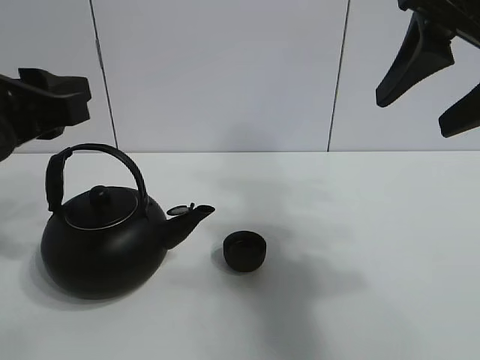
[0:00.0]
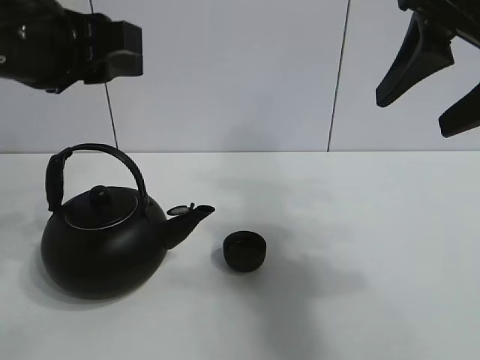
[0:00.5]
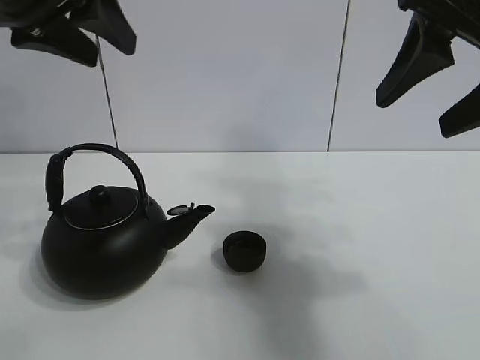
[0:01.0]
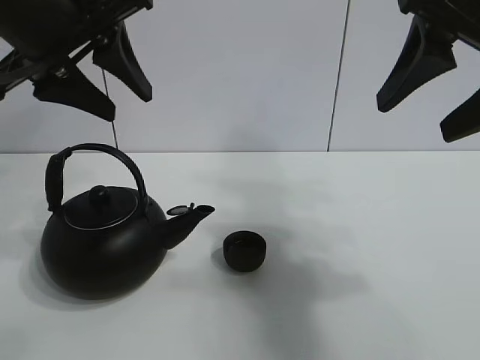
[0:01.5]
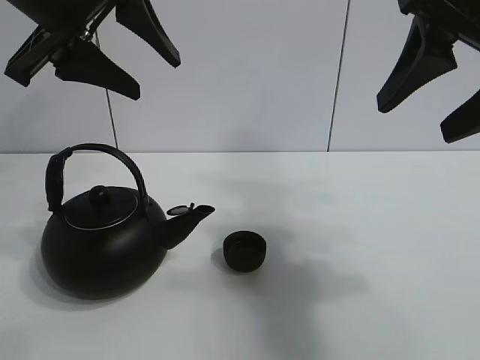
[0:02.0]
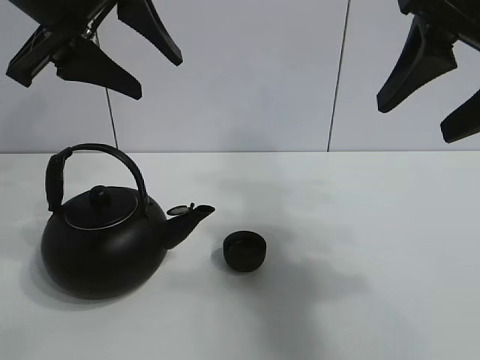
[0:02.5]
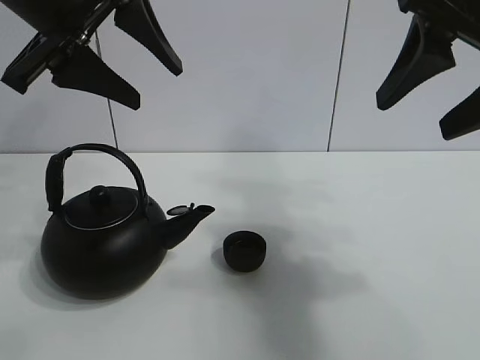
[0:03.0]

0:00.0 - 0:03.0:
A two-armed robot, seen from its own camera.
Task of the whole recording: pour tea into the teacup.
0:00.0 - 0:01.5: The left gripper travels upward and forward by roughly 10 cm.
0:01.5 - 0:03.0: The grippers stay close to where they were, moving slightly.

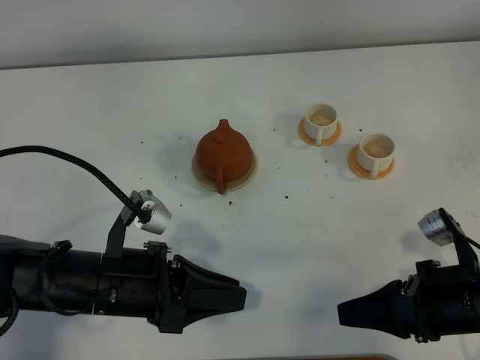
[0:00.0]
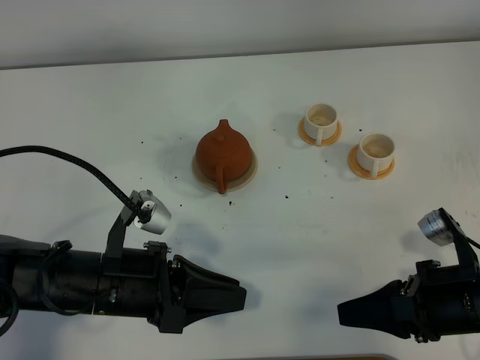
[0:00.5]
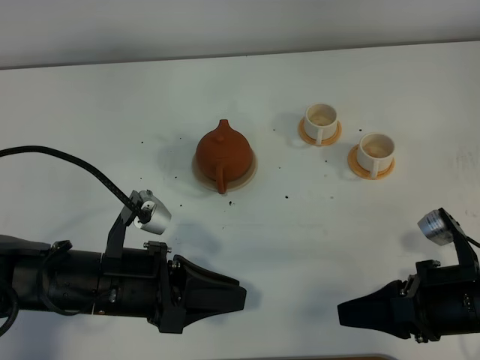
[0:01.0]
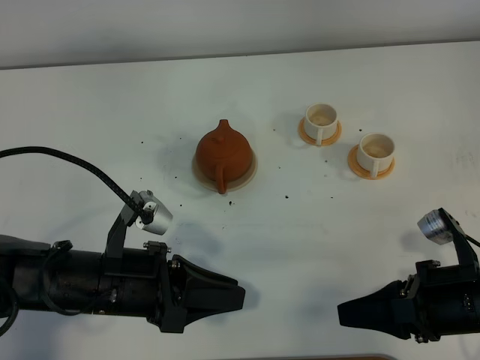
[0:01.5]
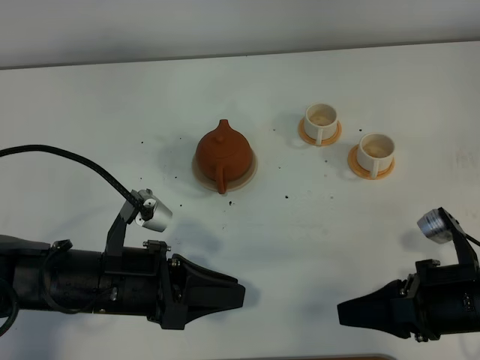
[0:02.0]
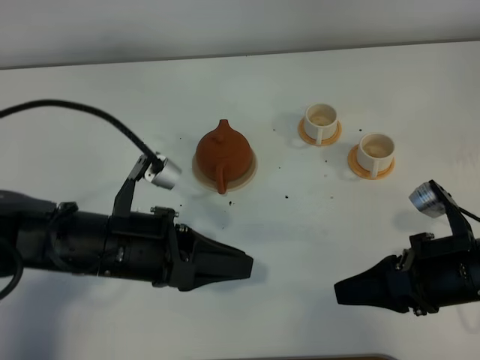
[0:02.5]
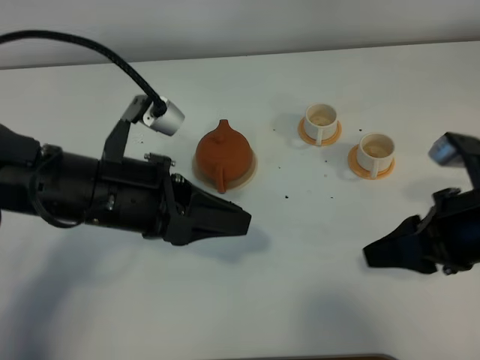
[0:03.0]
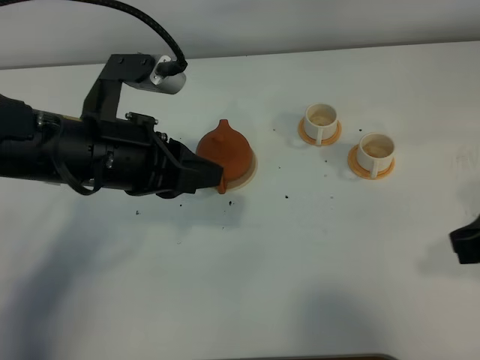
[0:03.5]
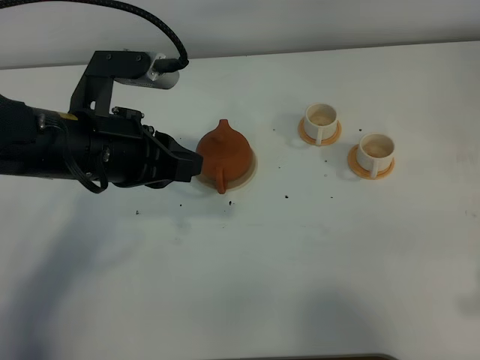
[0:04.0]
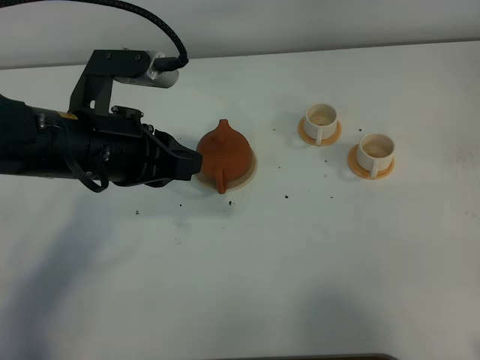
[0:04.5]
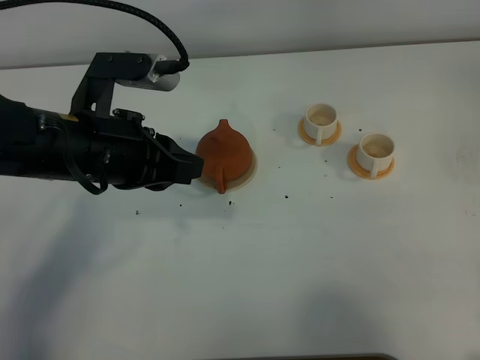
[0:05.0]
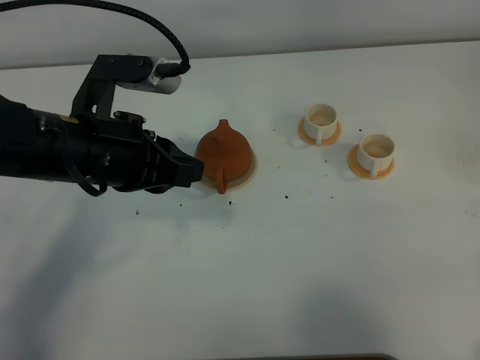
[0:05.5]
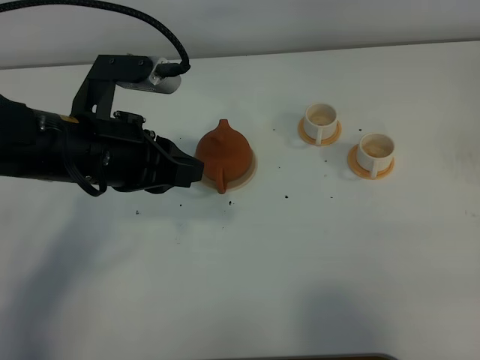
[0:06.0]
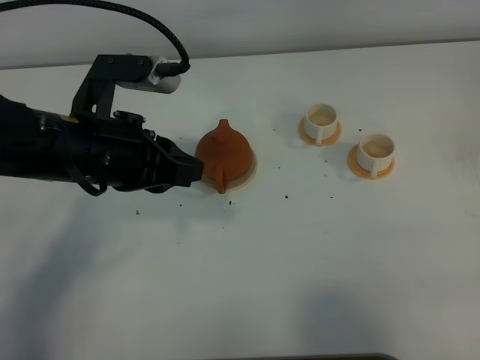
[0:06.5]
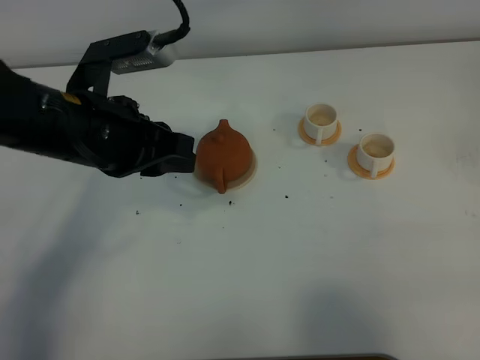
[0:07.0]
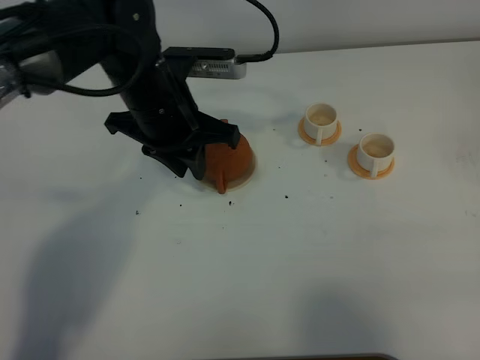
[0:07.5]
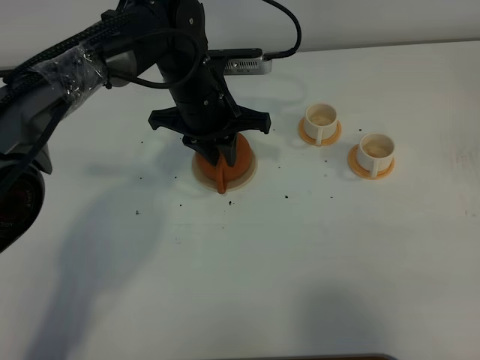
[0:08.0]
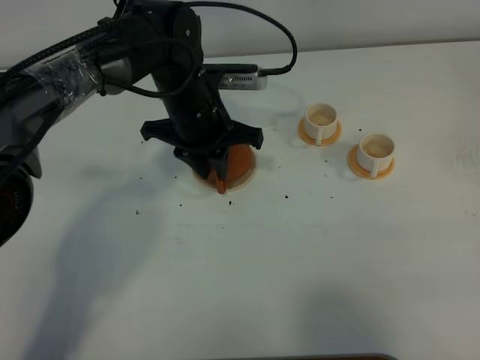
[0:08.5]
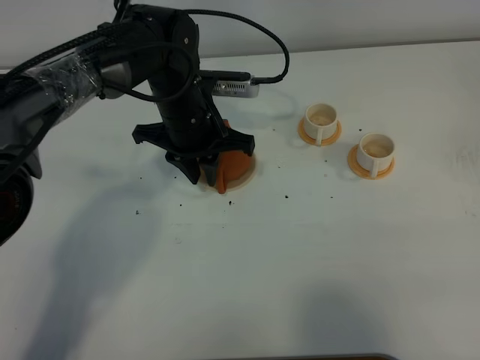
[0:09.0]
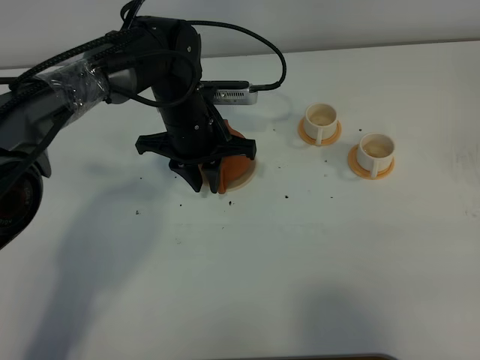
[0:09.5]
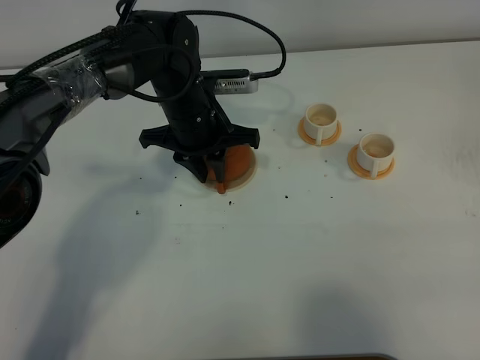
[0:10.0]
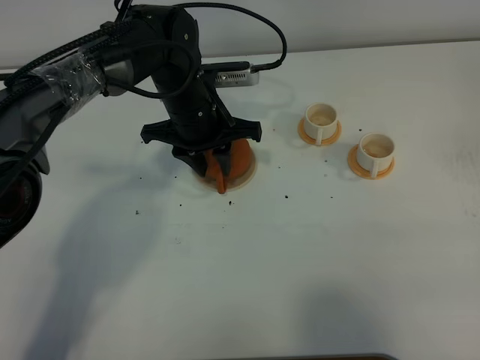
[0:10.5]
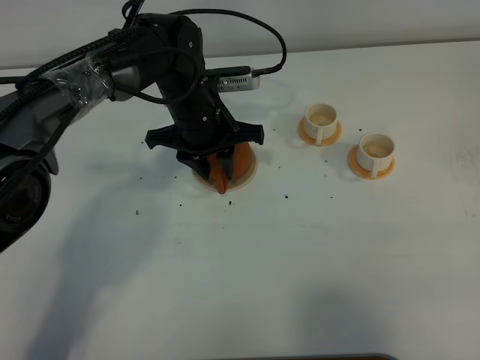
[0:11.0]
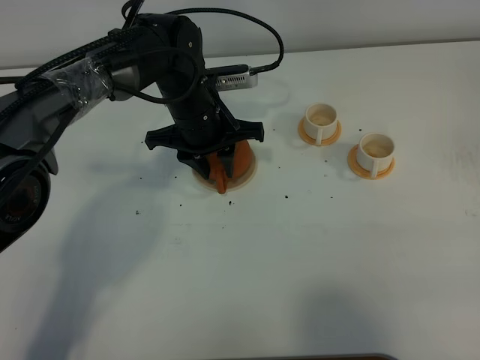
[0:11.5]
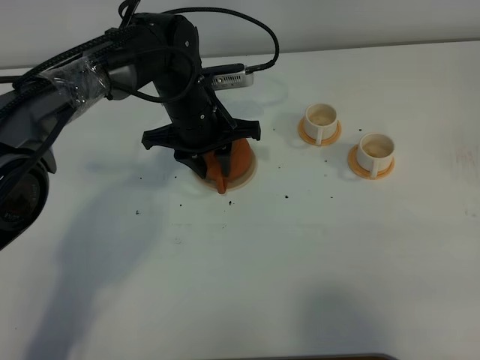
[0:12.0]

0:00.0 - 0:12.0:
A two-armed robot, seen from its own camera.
Task of the whole recording: grasp the brown teapot and pour the tea into the two white teacups one by one, put the brown teapot back in its original place.
0:00.0 - 0:02.0: Neither gripper changes place.
0:02.0 - 0:04.0: The left gripper heads upward and forward, covering roughly 15 cm. The right gripper goes about 15 cm upward and to the right.
0:04.0 - 0:06.0: The right gripper heads backward, covering some 10 cm.
0:06.0 - 0:08.0: The left gripper is displaced forward, to the right and downward by some 20 cm.
0:08.0 - 0:10.0: The grippers move only a little.
0:10.0 - 0:12.0: The left gripper opens up.

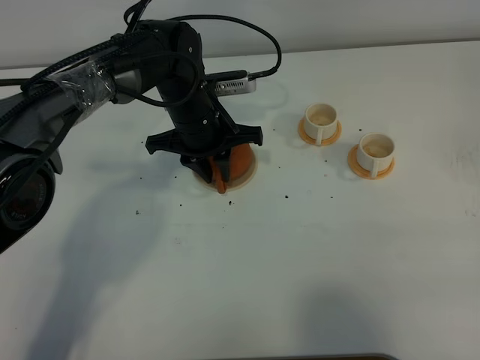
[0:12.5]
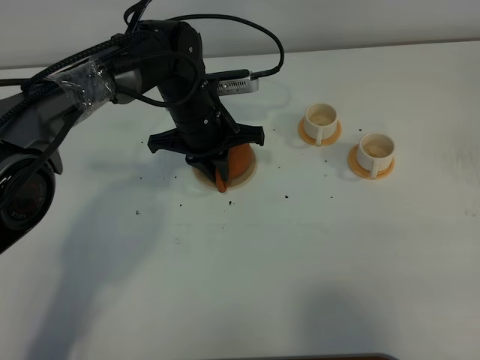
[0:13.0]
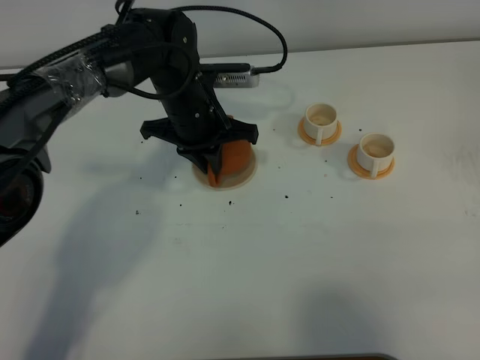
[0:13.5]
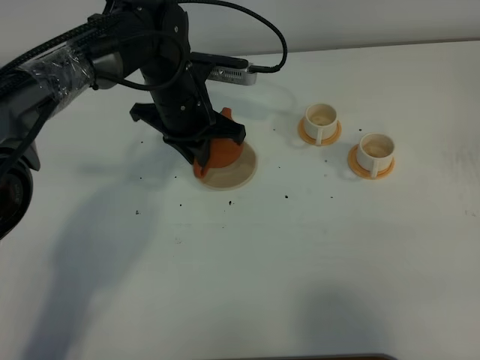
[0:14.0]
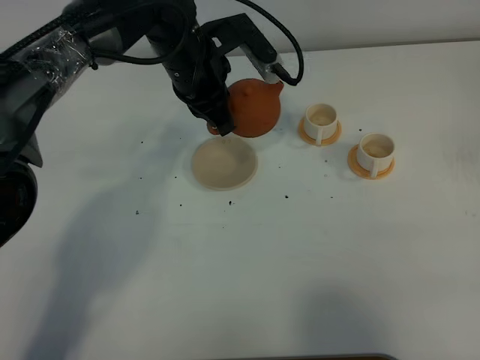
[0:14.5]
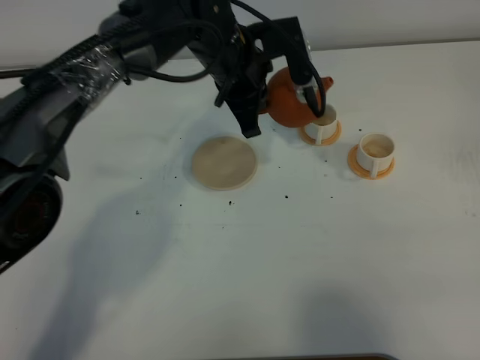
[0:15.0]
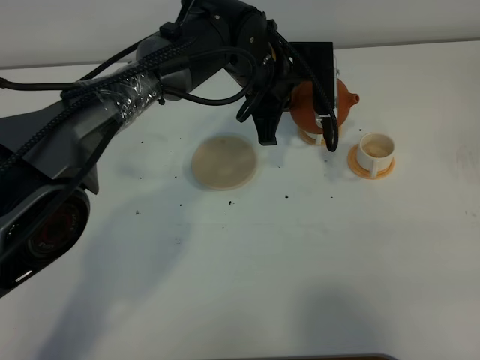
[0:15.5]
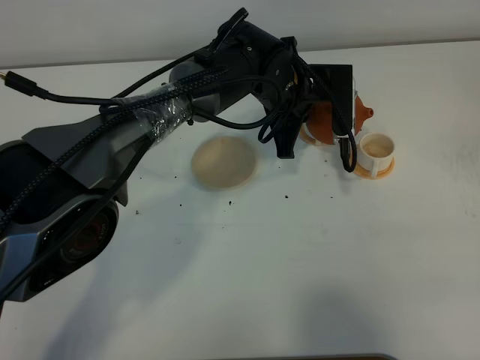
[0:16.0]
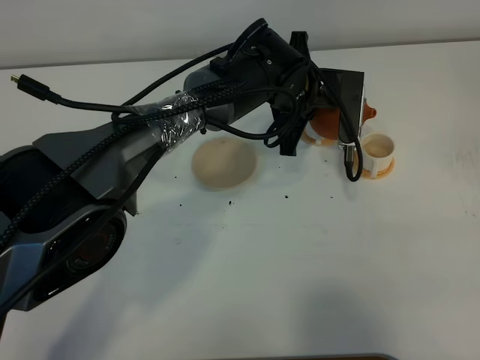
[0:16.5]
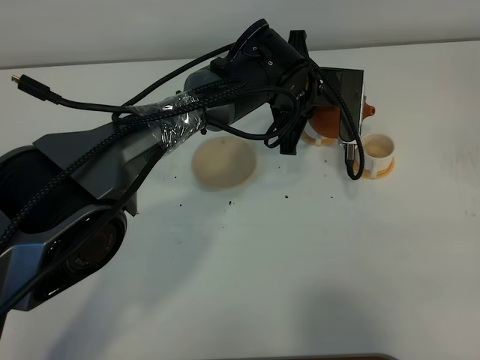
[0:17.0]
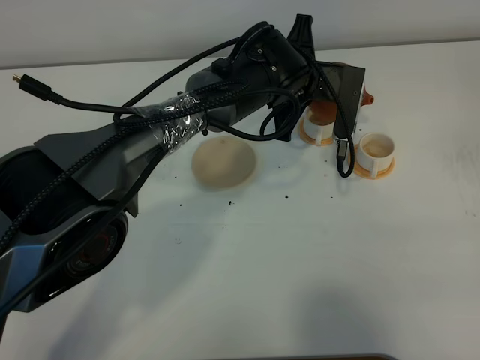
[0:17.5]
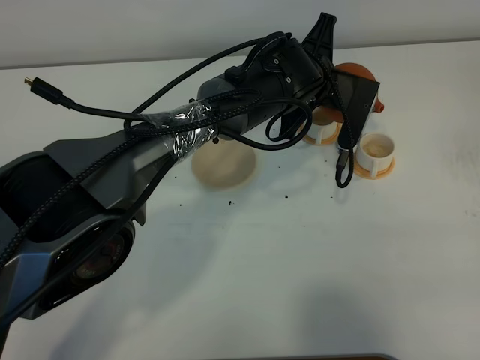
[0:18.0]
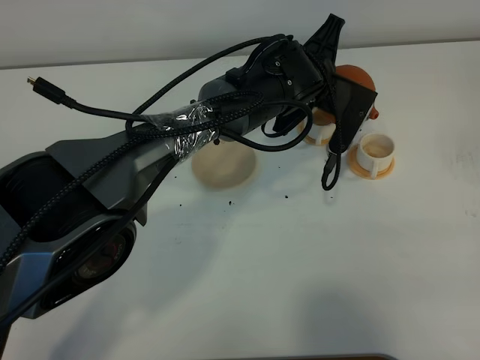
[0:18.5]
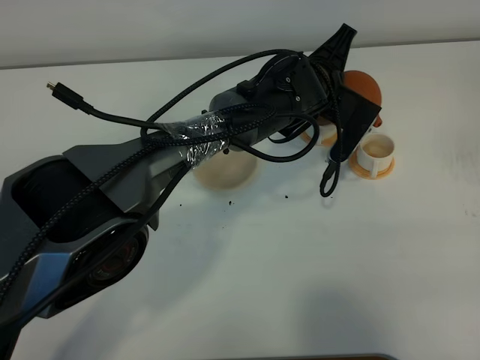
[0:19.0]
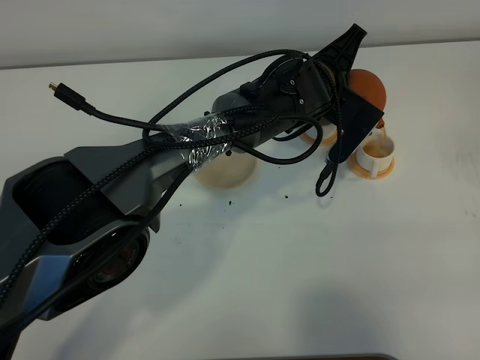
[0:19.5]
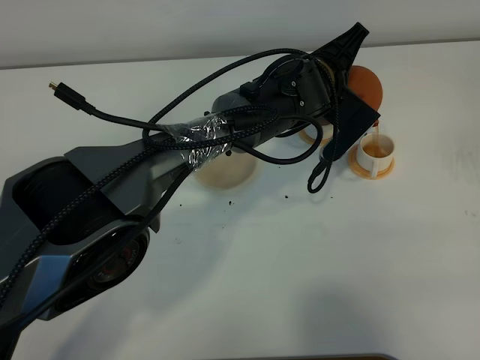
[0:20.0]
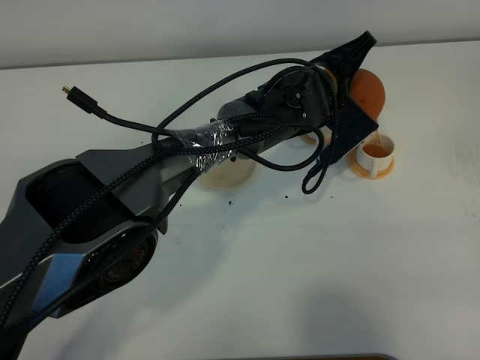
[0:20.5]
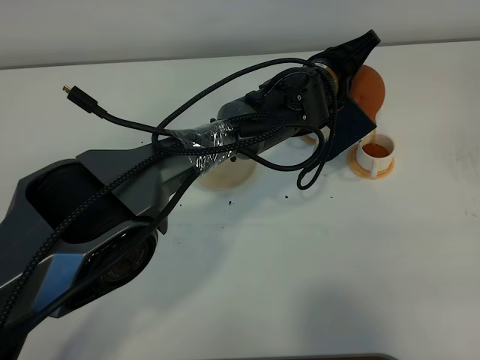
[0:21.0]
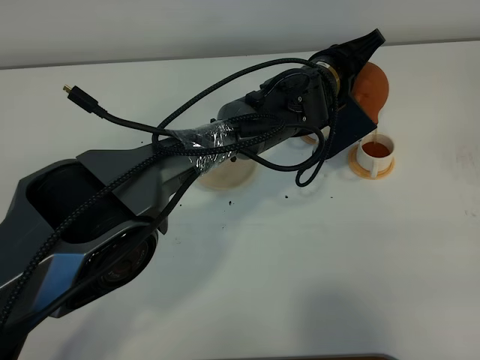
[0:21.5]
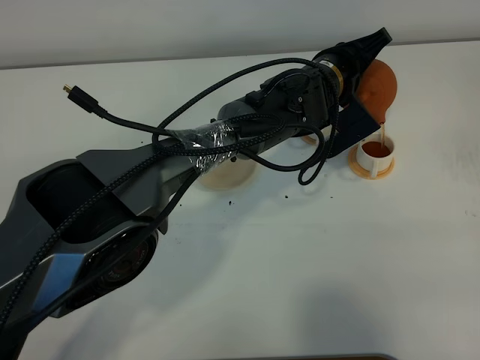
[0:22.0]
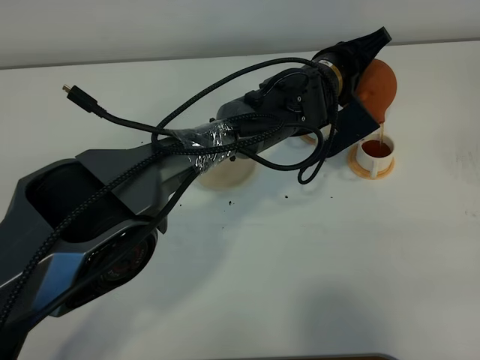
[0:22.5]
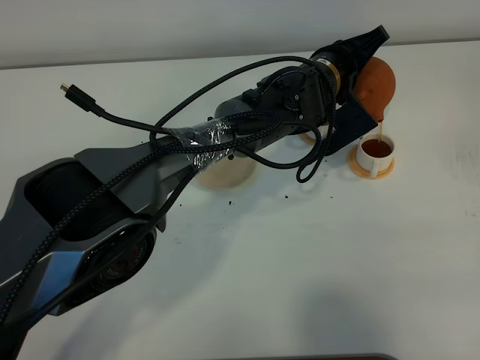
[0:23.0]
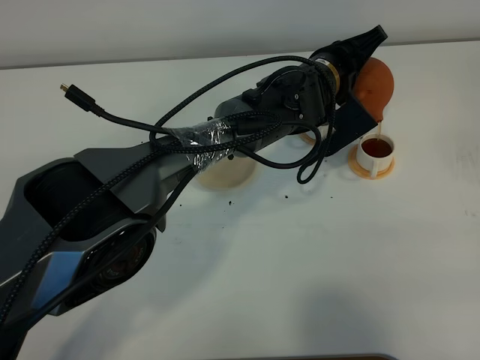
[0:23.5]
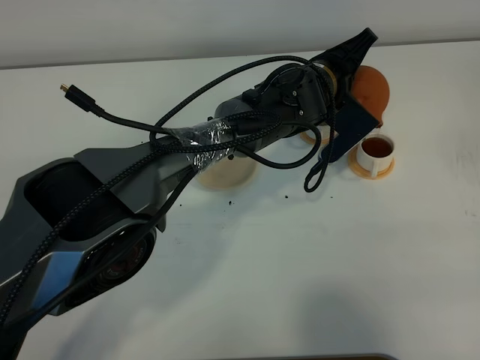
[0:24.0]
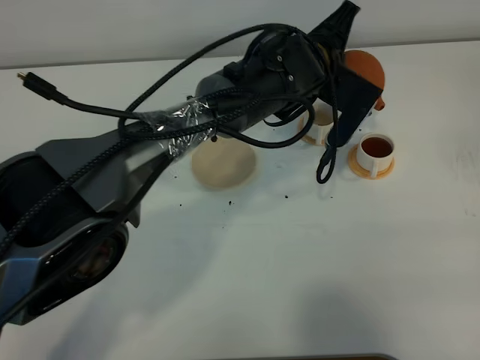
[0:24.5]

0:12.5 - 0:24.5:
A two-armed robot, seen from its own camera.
Task of the whole recording: grasp the brown teapot and pour the tea into the two white teacups one by one, put the brown teapot back in its original place.
0:12.5 - 0:14.5: The left gripper is displaced upward by approximately 10 cm, and closes its fingers.
0:14.5 - 0:16.5: The left gripper heads to the right, covering about 10 cm.
0:20.5 - 0:22.5: The right gripper closes its fingers.
0:22.5 - 0:24.5: The left gripper changes place by about 5 cm.
